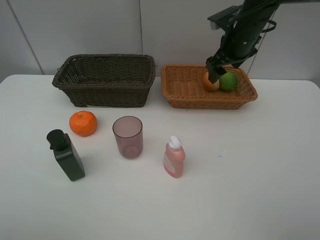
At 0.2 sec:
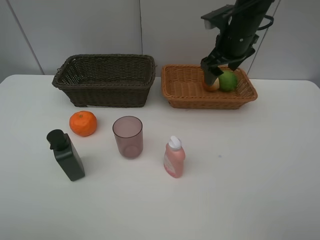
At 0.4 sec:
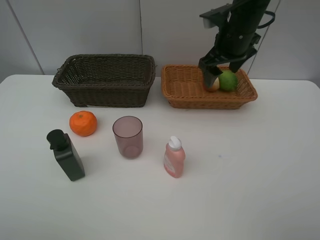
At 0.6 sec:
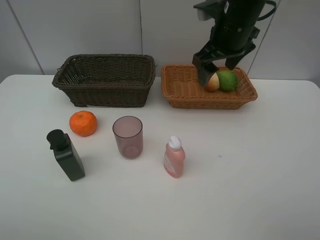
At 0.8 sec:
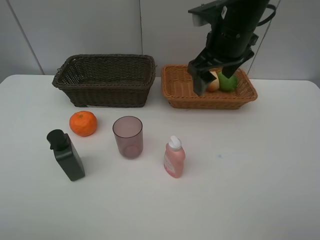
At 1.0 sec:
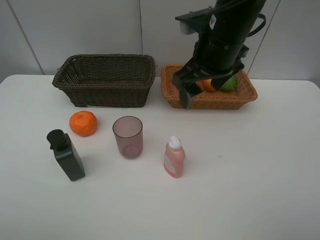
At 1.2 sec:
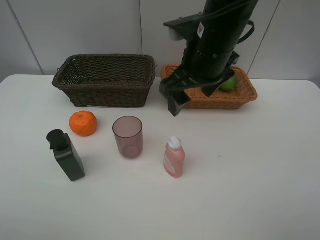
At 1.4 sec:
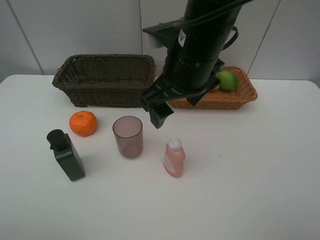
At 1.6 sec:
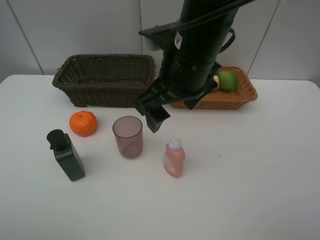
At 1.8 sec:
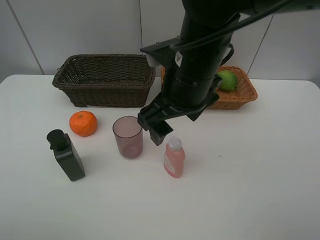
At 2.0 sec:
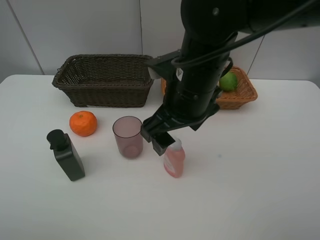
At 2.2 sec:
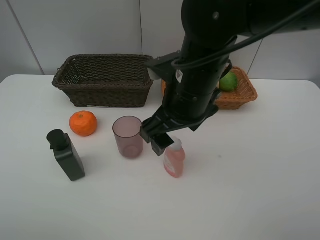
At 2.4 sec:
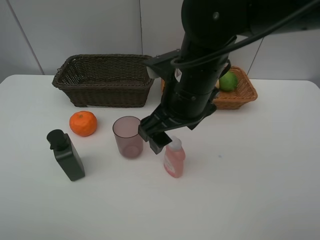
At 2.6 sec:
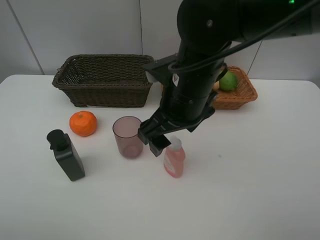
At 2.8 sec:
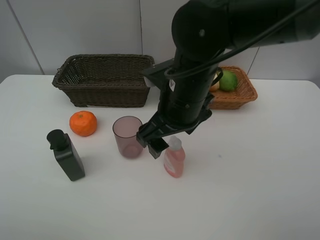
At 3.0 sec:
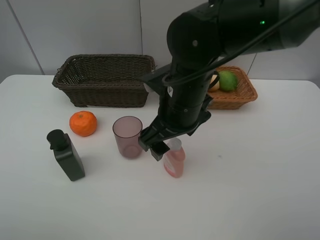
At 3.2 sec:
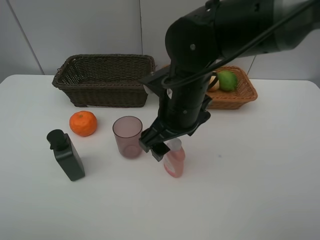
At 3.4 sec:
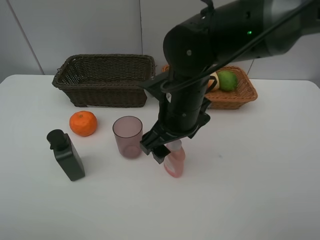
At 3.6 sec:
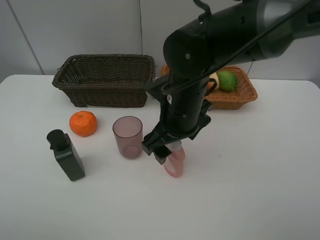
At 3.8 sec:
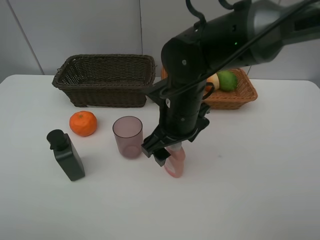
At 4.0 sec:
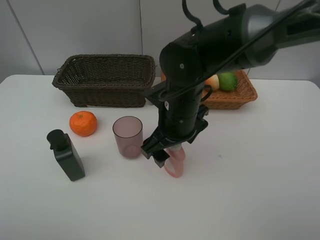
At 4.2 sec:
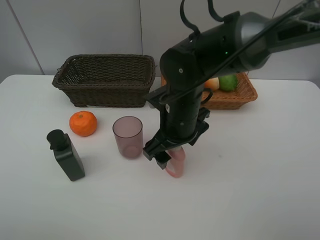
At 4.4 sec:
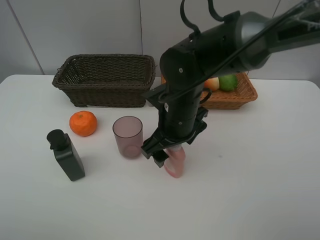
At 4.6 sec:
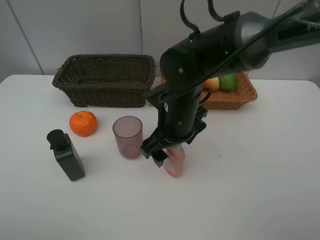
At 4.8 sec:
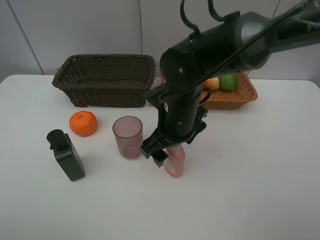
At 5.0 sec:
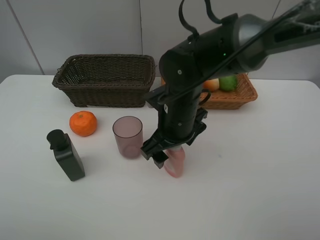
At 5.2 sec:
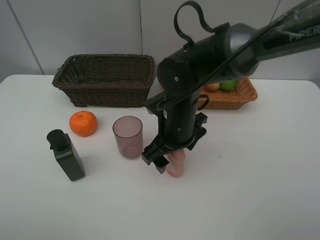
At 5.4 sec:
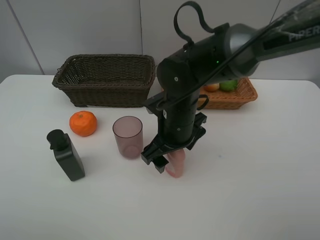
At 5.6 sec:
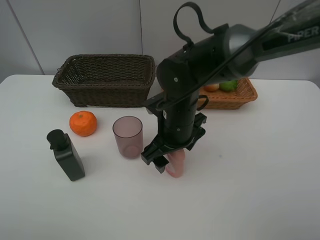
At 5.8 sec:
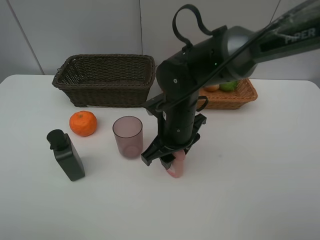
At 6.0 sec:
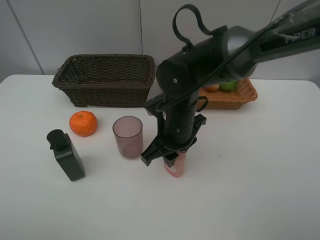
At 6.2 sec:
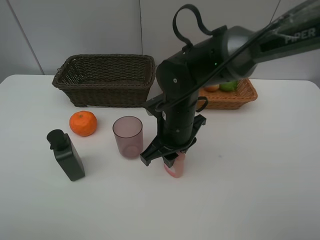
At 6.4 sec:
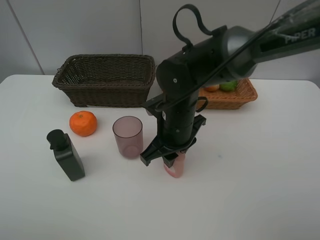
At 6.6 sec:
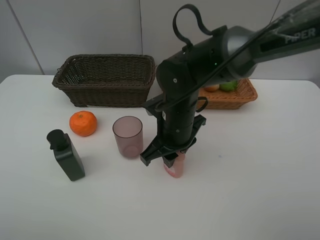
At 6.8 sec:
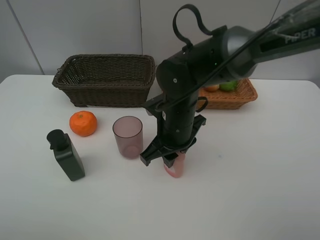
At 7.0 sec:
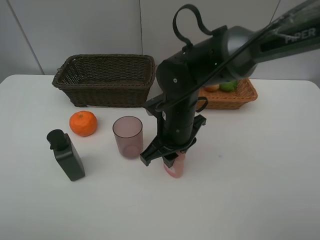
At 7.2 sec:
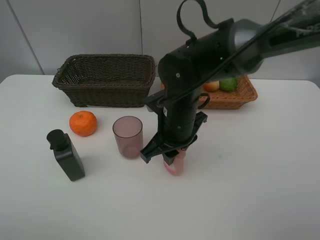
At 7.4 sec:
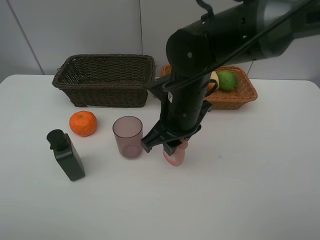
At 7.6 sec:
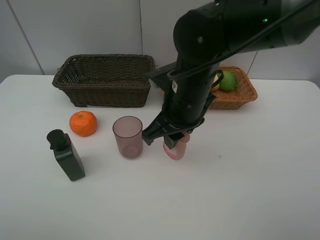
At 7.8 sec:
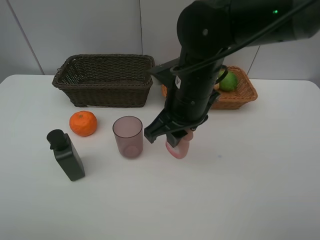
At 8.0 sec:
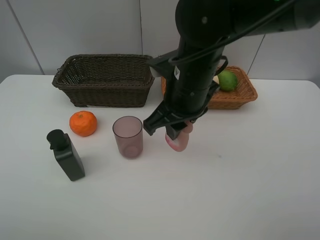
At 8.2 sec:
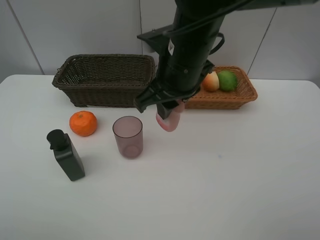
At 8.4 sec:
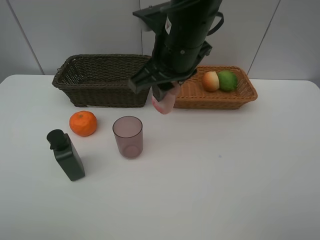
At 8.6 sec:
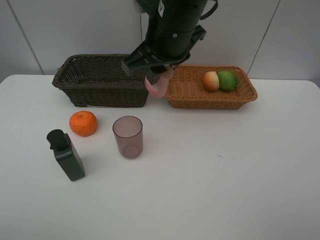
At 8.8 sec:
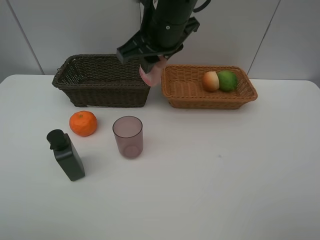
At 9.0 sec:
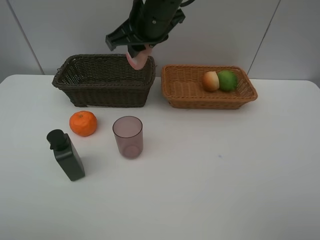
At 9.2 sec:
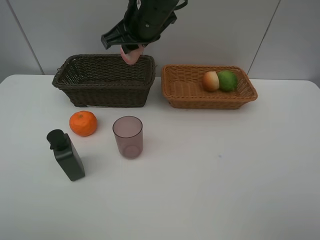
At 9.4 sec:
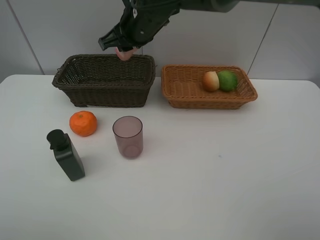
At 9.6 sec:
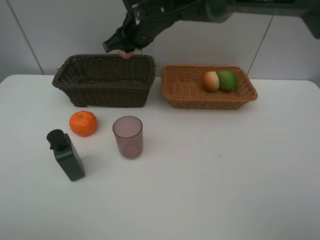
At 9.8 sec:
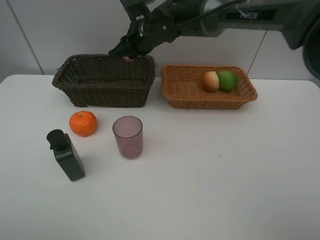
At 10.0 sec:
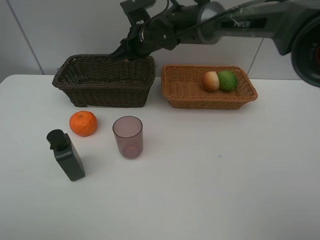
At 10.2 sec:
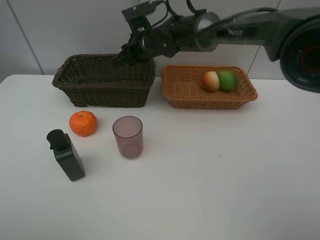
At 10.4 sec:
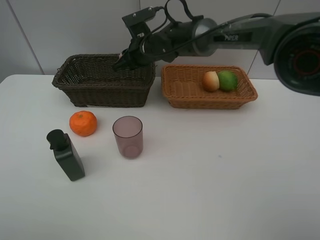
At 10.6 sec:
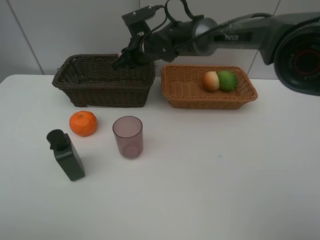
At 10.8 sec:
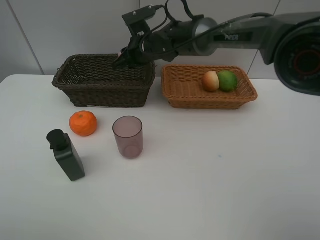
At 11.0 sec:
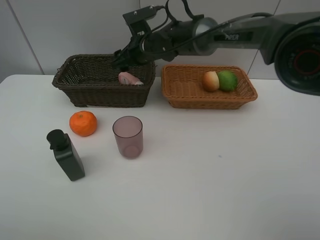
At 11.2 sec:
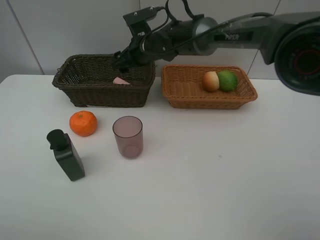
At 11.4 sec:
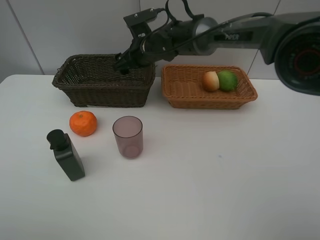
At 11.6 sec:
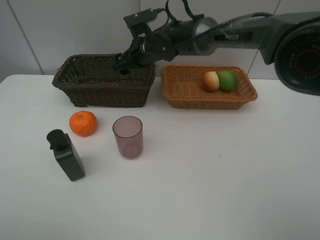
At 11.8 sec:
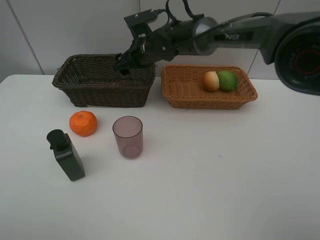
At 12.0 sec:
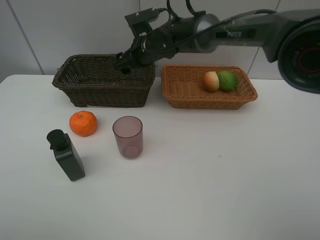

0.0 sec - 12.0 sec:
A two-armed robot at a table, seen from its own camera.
Task of the whole recording: place multiple objects separately in different baskets.
0.0 sec - 1.6 sec: The right gripper shifts approximately 20 cm backward and to the left.
1.6 sec - 3.0 sec: The right gripper moves downward, roughly 5 cm.
3.0 sec - 4.4 sec: The grippers stay close to where they were, moving slightly.
4.4 sec - 6.0 sec: The right gripper closes its fingers.
6.0 sec - 7.6 sec: The right gripper moves upward, roughly 5 cm.
7.6 sec - 9.0 sec: The right gripper heads forward, upward and to the left, covering roughly 15 cm.
9.0 sec - 10.4 sec: The right gripper goes approximately 15 cm downward and forward.
10.4 sec - 12.0 sec: The right gripper opens.

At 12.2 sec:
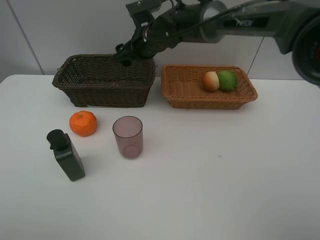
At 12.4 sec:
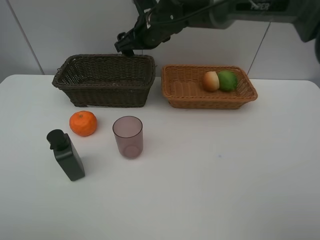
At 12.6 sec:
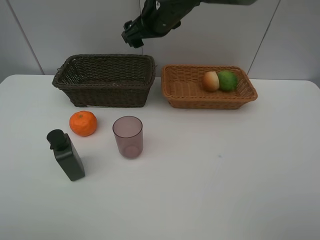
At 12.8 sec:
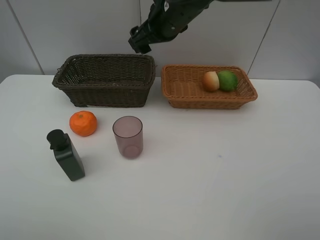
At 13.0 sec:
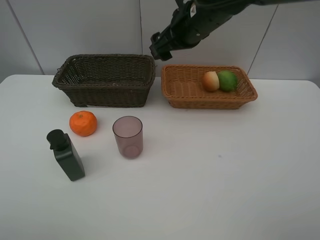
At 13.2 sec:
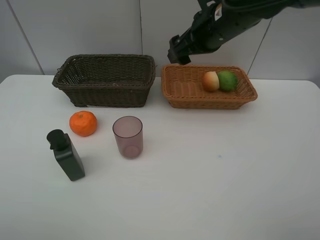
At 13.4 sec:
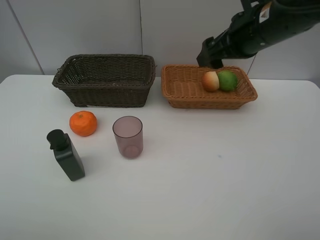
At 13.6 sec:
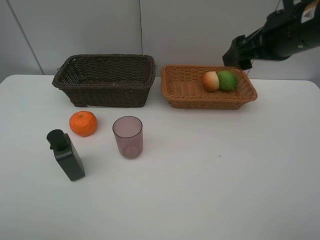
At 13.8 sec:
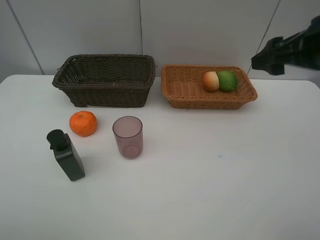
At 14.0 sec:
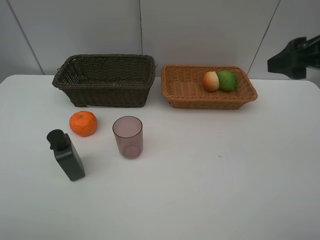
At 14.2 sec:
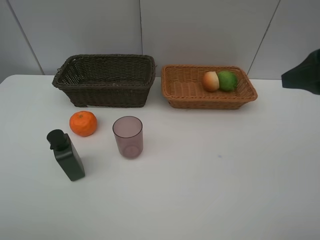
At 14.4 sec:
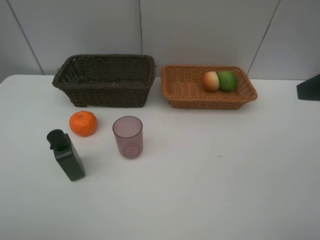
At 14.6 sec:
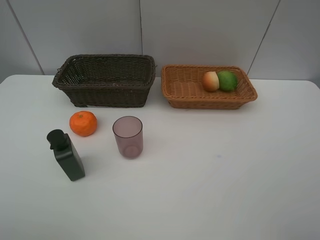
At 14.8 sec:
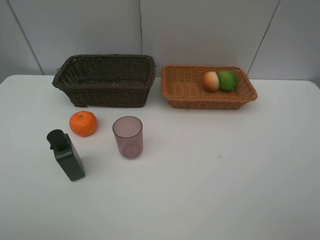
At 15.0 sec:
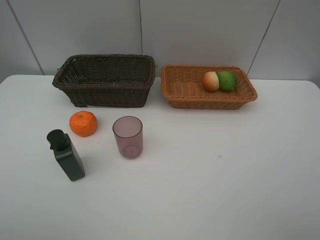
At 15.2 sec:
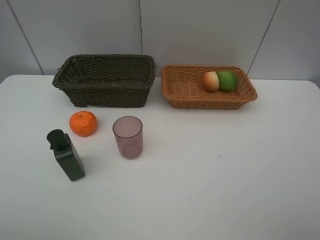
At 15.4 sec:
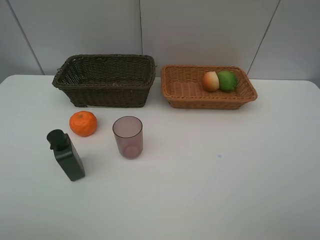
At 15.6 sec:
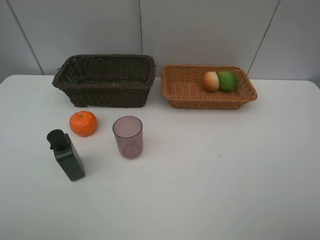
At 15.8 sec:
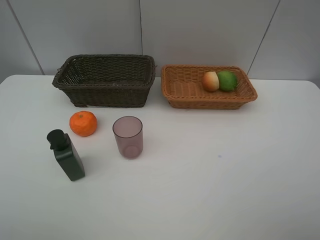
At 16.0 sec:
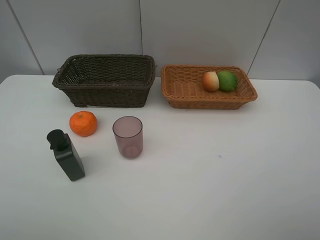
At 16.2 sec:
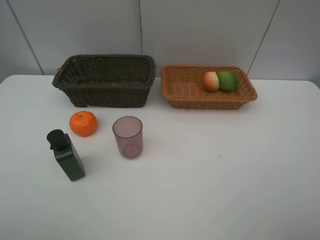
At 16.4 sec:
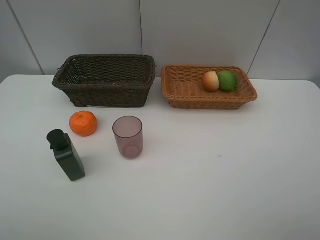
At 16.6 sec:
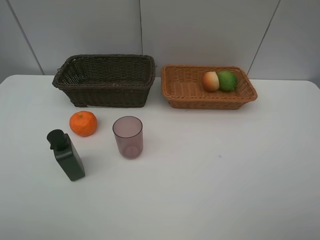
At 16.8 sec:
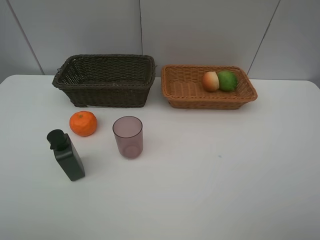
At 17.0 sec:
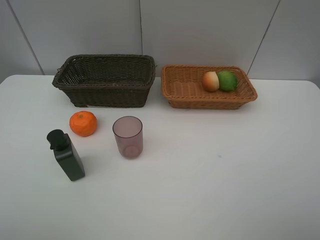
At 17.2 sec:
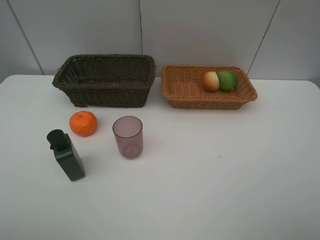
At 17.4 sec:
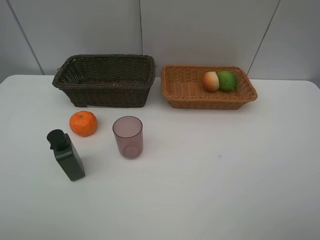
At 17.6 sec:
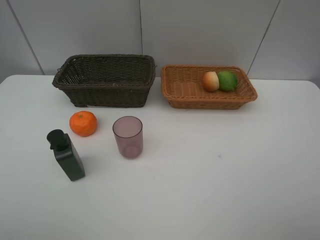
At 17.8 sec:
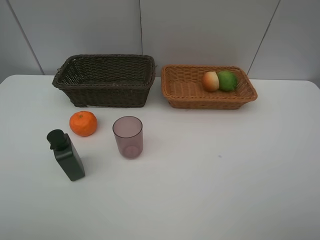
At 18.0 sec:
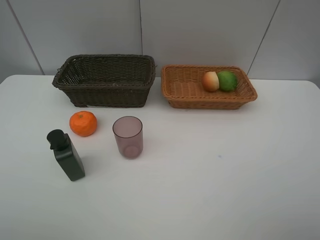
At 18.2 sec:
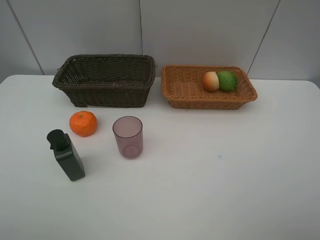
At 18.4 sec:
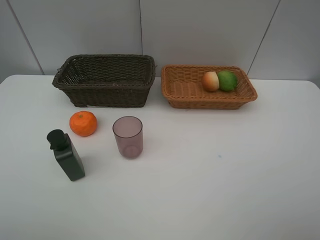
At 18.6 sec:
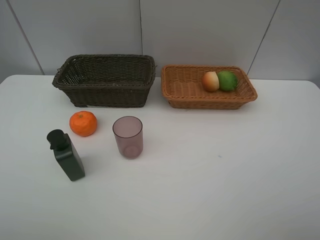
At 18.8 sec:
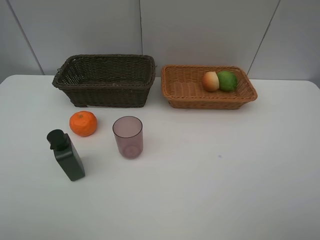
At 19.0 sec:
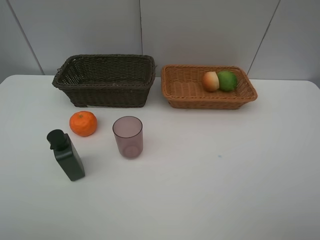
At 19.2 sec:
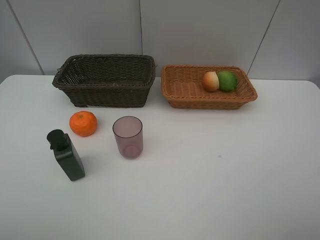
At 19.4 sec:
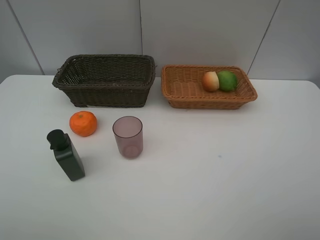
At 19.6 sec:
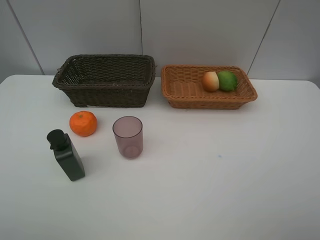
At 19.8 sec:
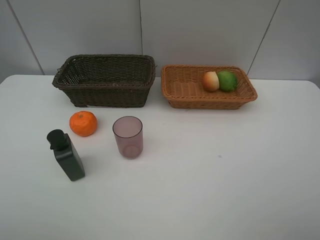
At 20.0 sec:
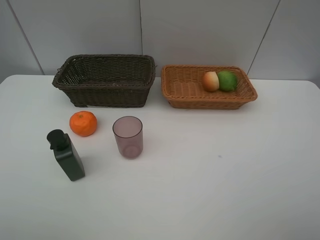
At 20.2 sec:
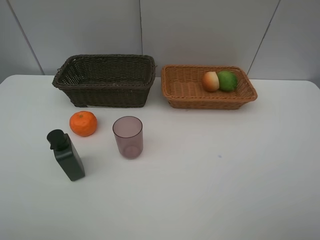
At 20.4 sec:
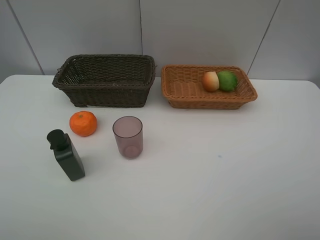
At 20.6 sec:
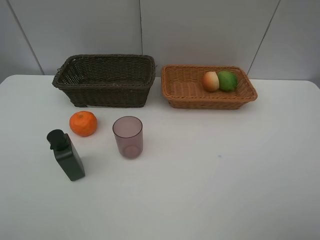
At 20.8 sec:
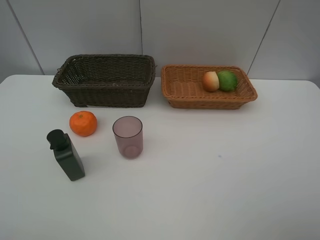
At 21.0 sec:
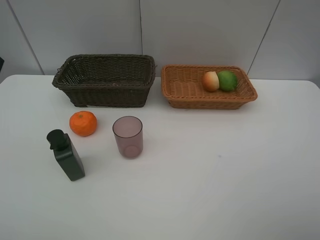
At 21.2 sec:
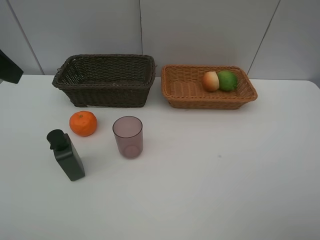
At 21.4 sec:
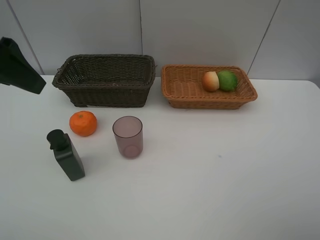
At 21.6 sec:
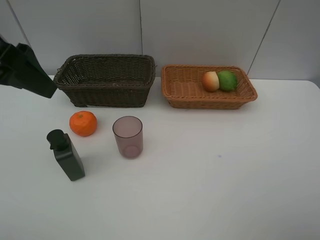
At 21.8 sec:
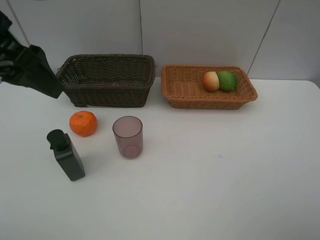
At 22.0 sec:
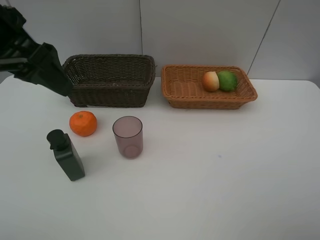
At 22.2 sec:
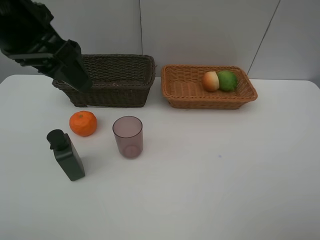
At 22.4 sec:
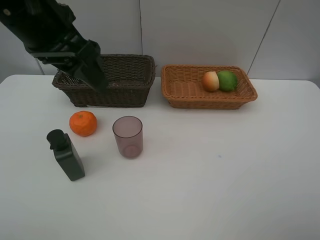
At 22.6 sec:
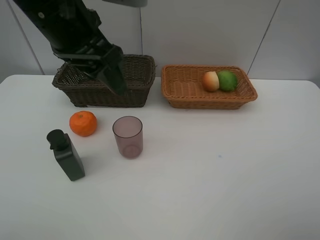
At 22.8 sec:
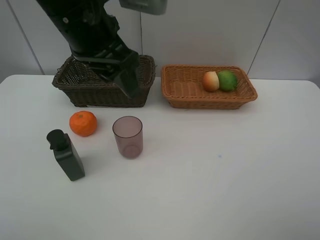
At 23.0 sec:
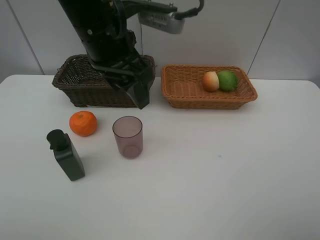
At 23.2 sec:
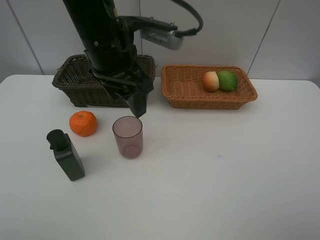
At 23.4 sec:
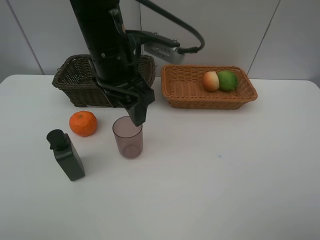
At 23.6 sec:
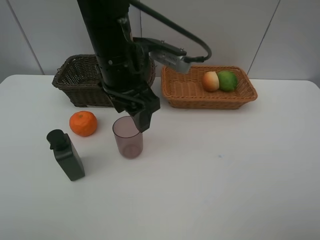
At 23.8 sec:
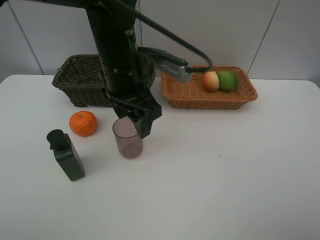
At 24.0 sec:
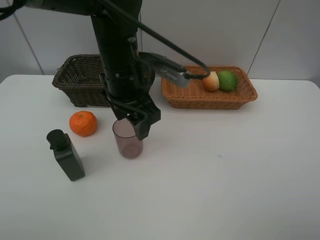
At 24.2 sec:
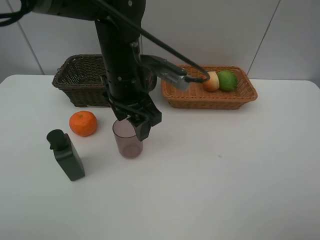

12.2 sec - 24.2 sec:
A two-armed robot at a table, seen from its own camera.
Task of the whole recording: place multiple objects separately in different baskets.
12.2 sec - 13.8 sec: The right gripper heads to the right and backward, covering approximately 35 cm.
13.8 sec - 15.2 sec: The right gripper goes approximately 20 cm backward.
16.6 sec - 19.8 sec: Both grippers stay put.
21.2 sec - 22.6 sec: The left gripper is displaced to the right by some 15 cm.
22.6 sec - 24.2 sec: The left gripper is displaced downward and to the right by roughly 10 cm.
